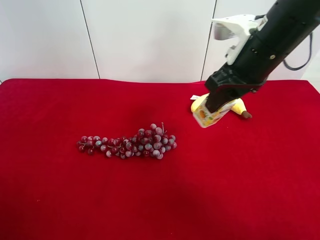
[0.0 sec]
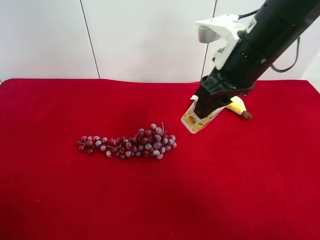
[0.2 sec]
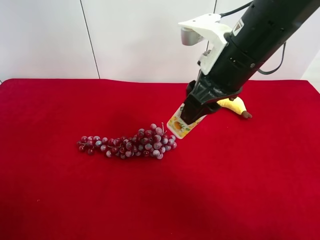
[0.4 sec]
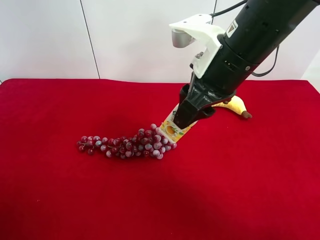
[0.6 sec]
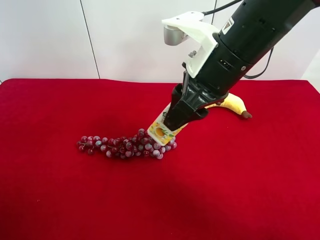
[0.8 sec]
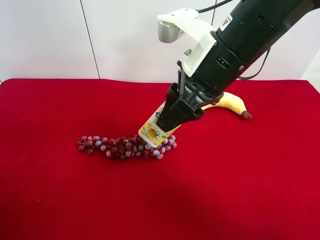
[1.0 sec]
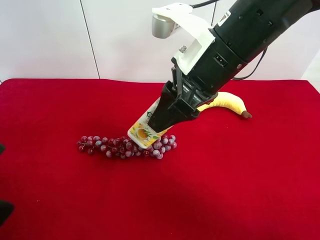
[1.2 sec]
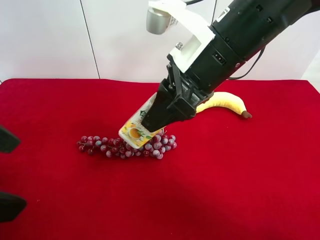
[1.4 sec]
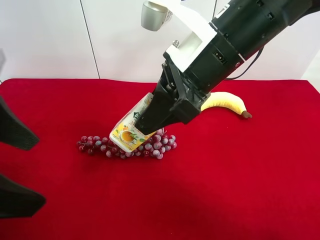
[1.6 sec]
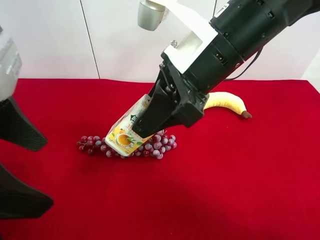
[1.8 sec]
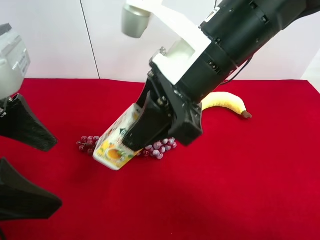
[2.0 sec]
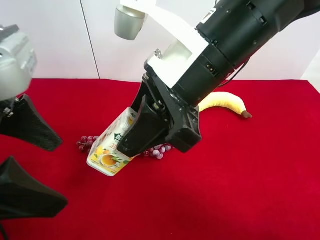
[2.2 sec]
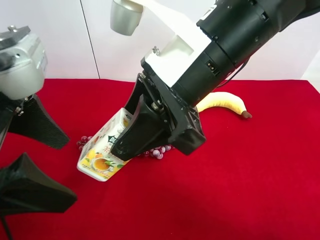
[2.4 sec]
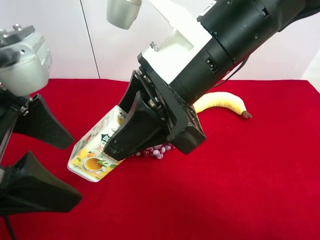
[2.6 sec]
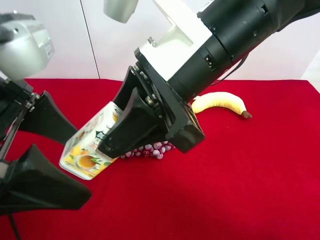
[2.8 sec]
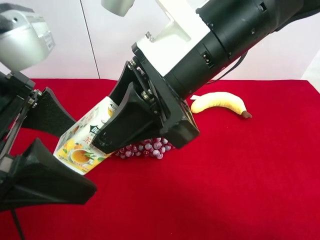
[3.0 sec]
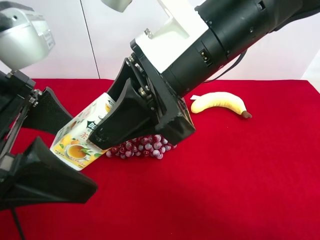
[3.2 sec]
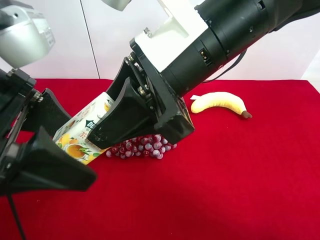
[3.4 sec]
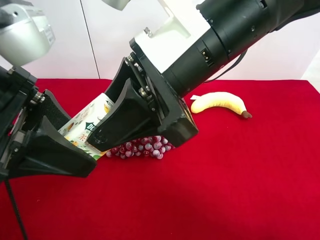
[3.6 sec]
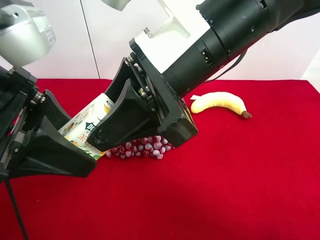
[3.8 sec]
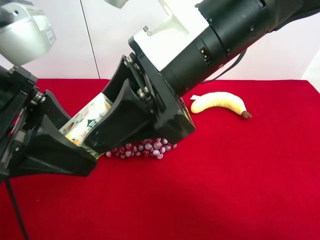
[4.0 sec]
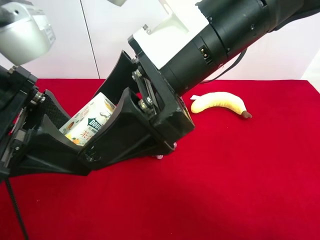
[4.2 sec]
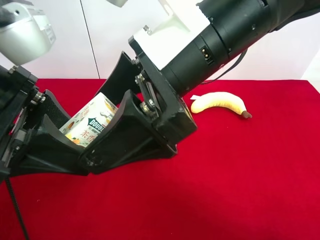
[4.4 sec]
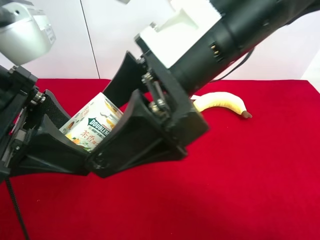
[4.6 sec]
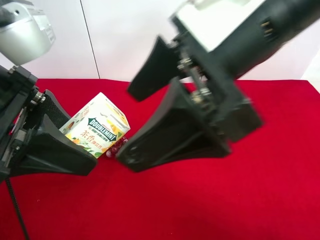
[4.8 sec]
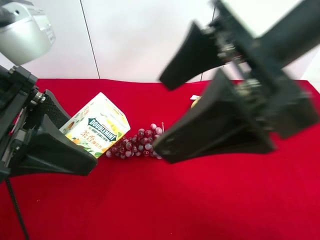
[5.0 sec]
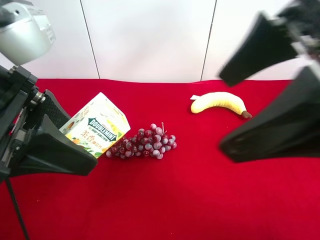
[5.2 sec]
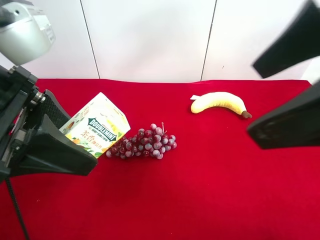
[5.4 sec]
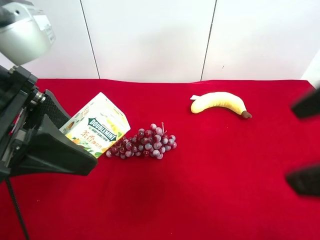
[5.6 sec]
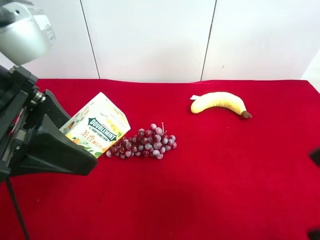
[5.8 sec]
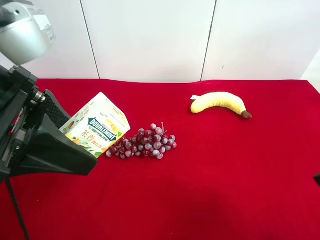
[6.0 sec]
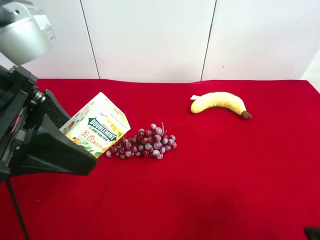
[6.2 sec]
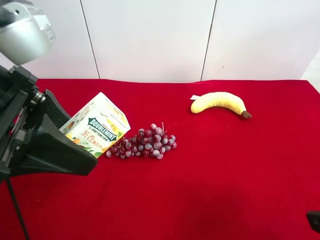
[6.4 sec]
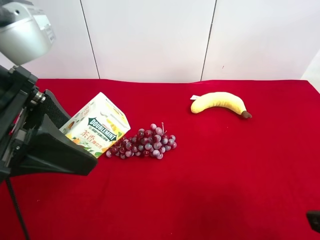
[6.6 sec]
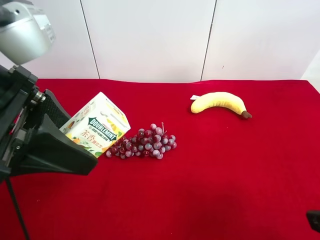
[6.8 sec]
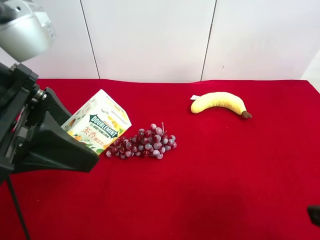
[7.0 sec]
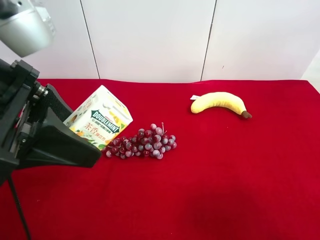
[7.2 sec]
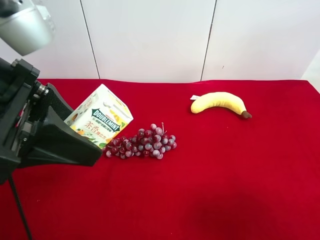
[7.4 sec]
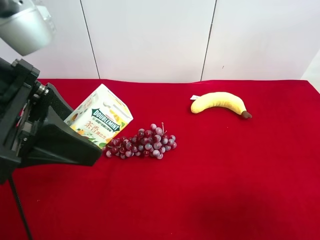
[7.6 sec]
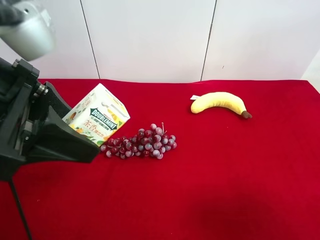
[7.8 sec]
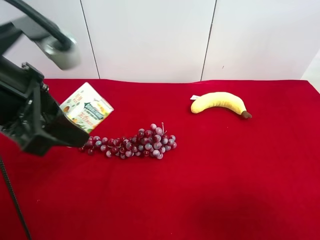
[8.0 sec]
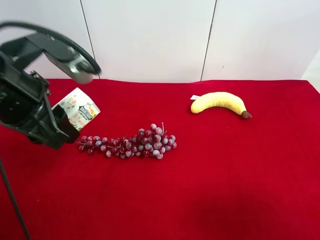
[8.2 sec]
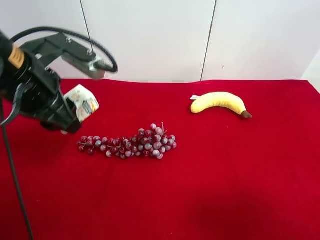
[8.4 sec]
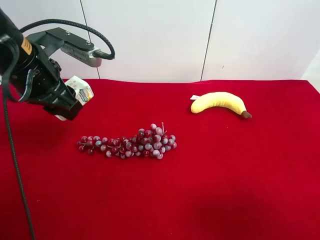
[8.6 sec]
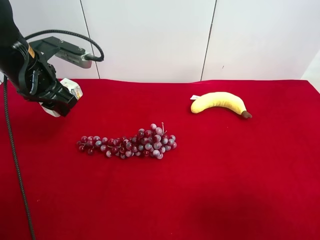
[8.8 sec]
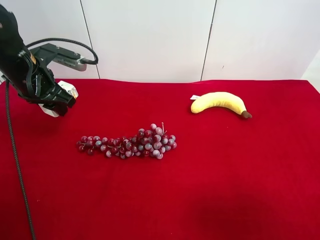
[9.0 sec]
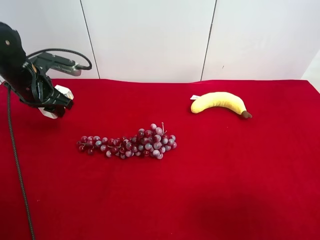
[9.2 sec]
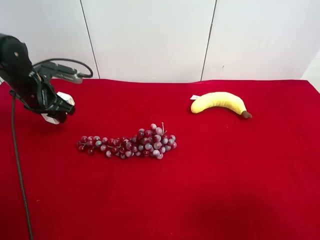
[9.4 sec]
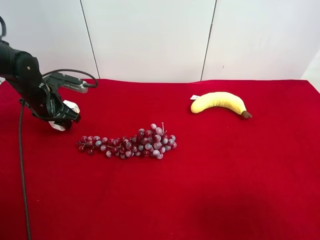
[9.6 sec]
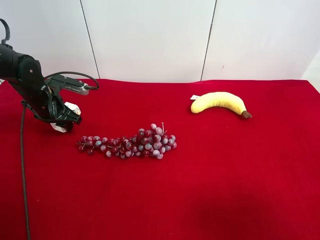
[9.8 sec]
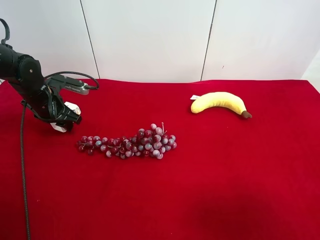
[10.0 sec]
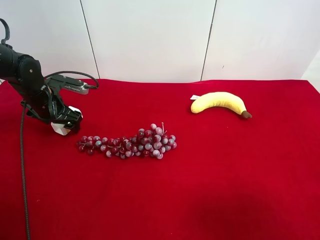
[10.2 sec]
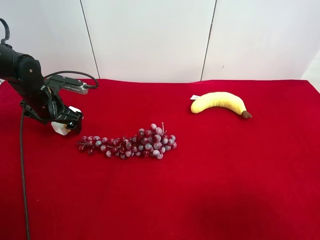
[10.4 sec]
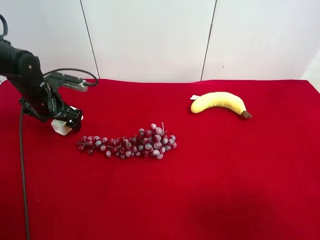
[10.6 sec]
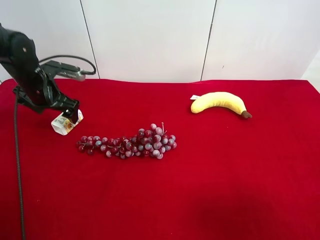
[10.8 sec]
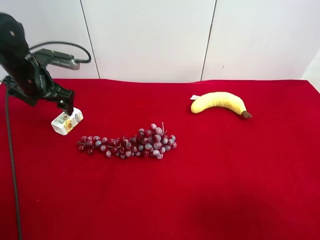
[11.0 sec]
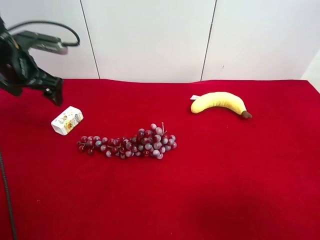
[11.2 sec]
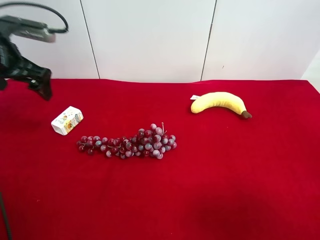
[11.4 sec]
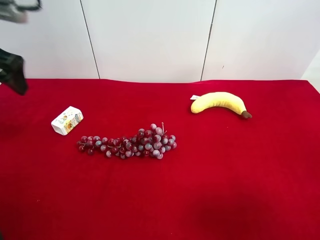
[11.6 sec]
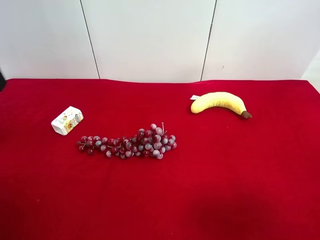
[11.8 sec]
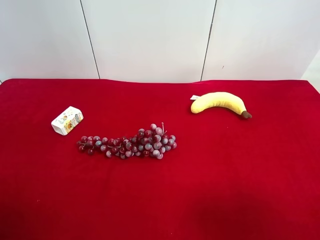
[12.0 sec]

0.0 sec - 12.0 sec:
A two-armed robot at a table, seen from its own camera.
Task of the whole recording: use the right gripper to pick up the item and transfer it from the right gripper to the left gripper.
Step, 0.0 sec - 4.6 sec: Pass the square chewing gum to the left gripper.
Step, 4.8 sec - 10.4 sec: The left gripper places square chewing gum on the left side of the table.
0.0 sec - 1.6 sec: The left gripper shifts roughly 15 cm forward and to the right, while the right gripper moves to the left, about 10 cm.
3.0 sec - 4.4 sec: The right gripper opens up. Meanwhile the left gripper closes.
4.4 sec - 6.0 sec: The right gripper shifts approximately 25 cm to the right and backward.
6.0 sec - 7.6 sec: The right gripper moves about 5 cm.
7.6 sec - 9.0 sec: The left gripper heads forward, downward and to the left, covering some 25 cm.
9.0 sec - 10.4 sec: The left gripper is displaced downward by about 10 cm, and opens.
10.4 sec - 12.0 sec: The left gripper goes approximately 35 cm upward and backward.
